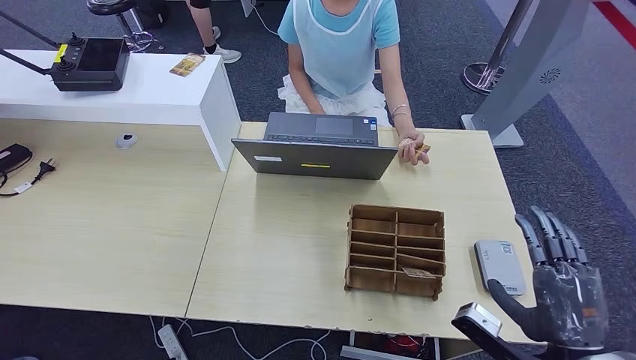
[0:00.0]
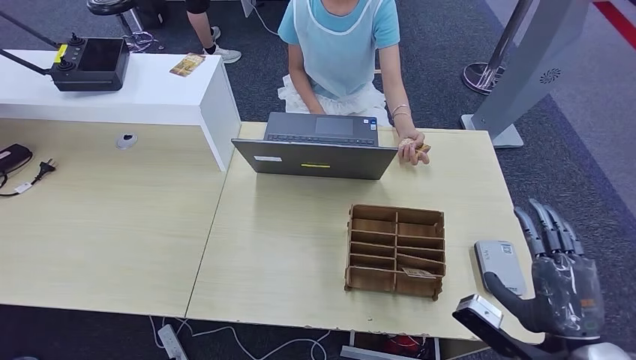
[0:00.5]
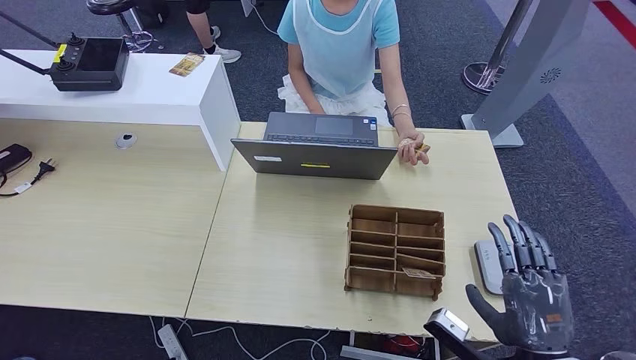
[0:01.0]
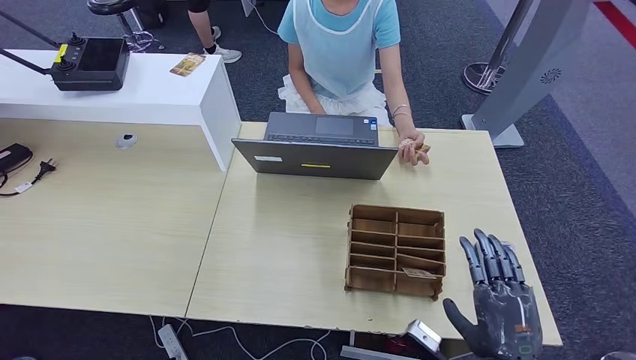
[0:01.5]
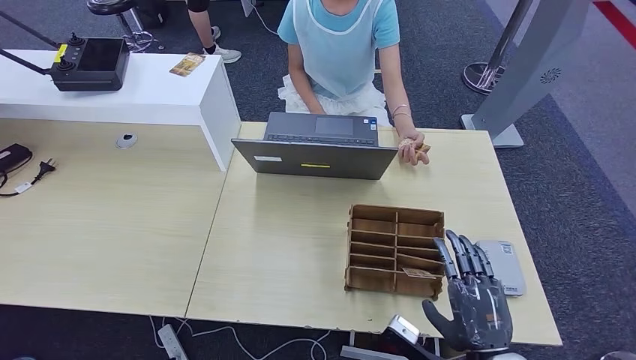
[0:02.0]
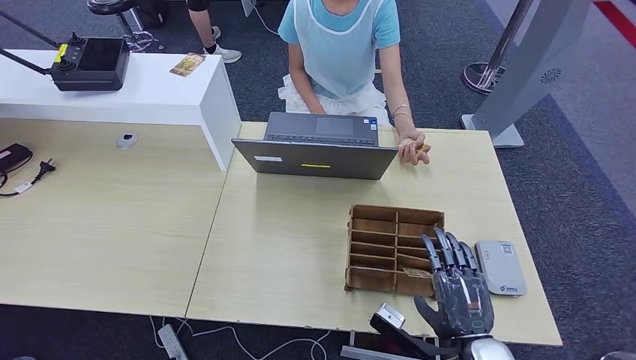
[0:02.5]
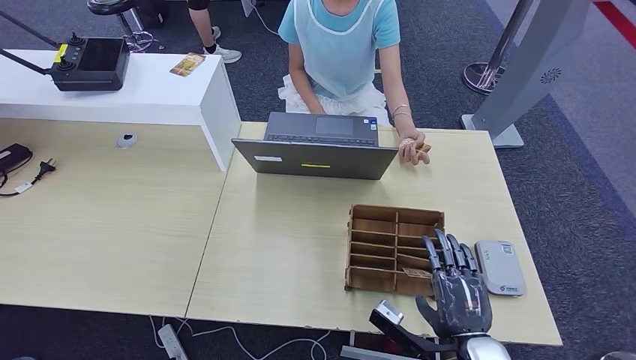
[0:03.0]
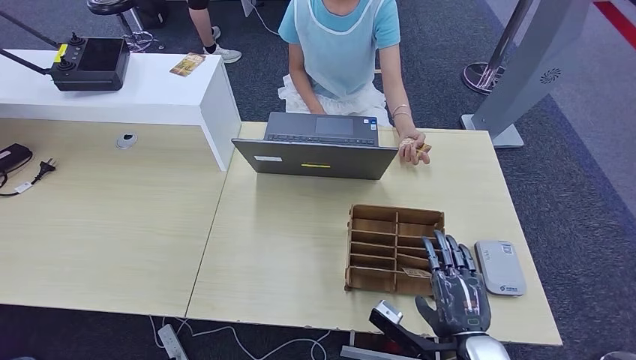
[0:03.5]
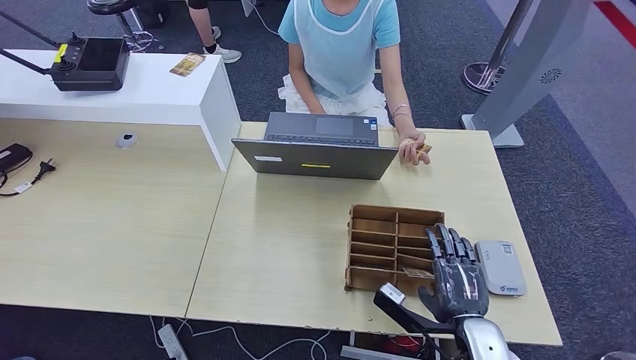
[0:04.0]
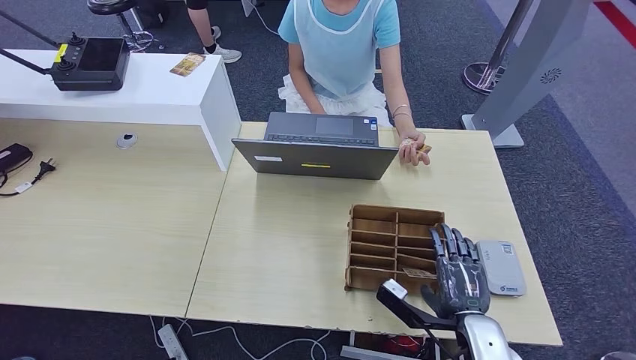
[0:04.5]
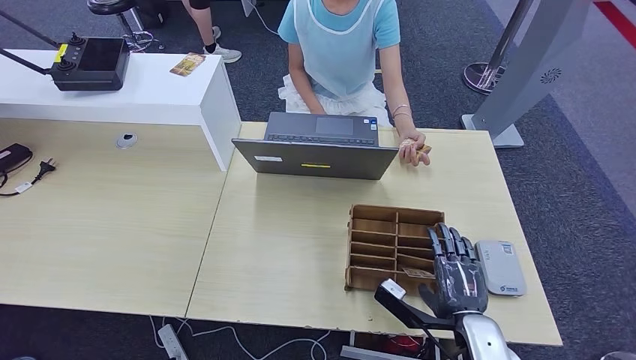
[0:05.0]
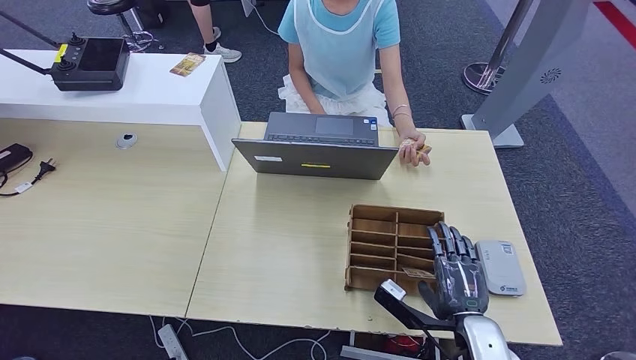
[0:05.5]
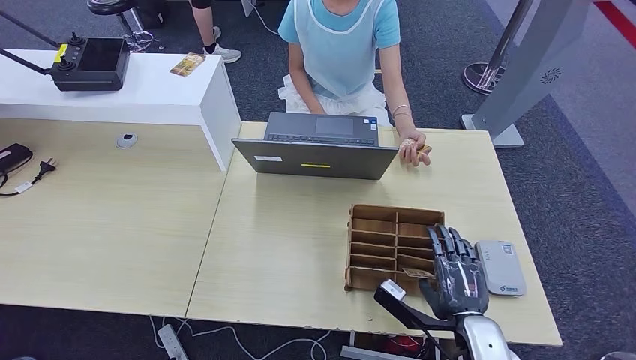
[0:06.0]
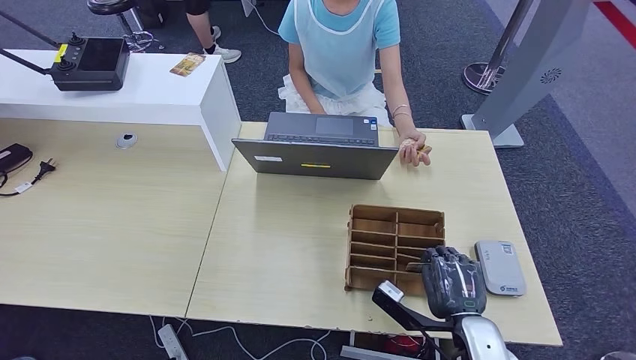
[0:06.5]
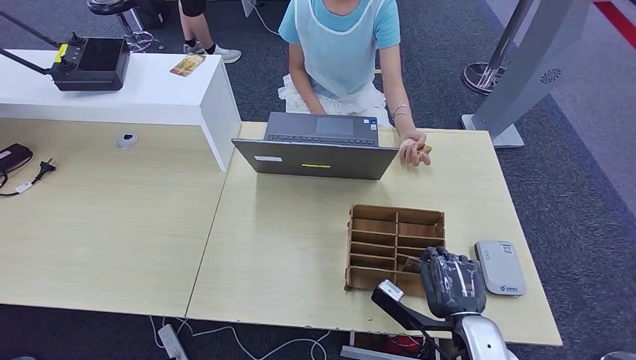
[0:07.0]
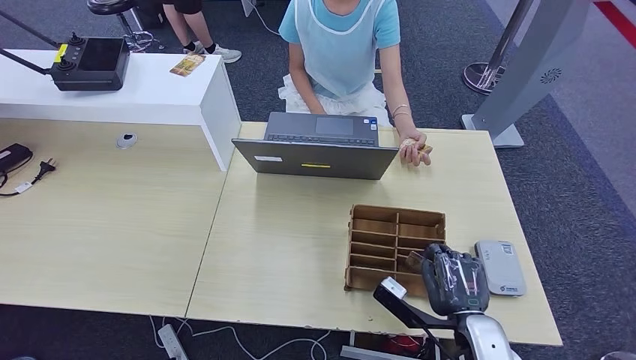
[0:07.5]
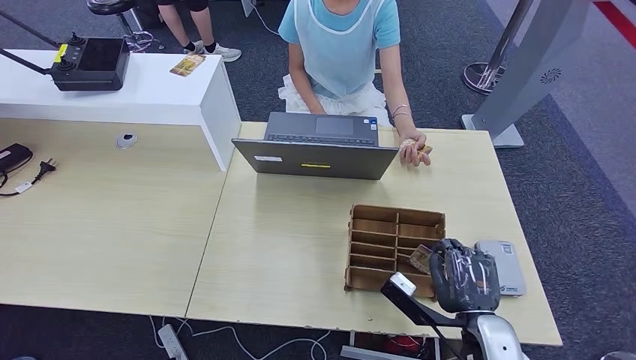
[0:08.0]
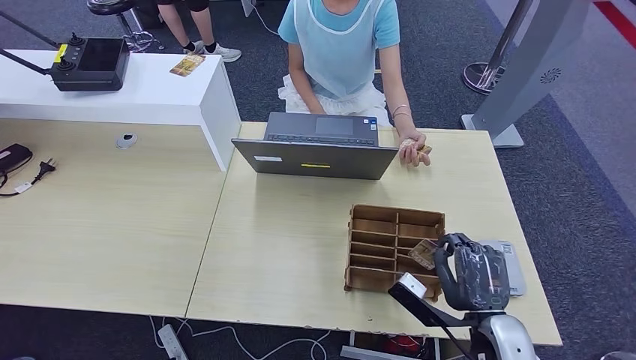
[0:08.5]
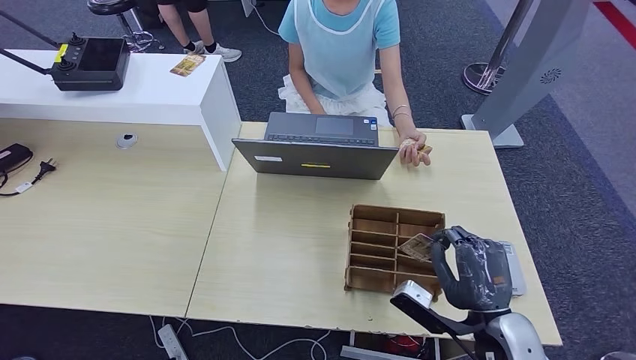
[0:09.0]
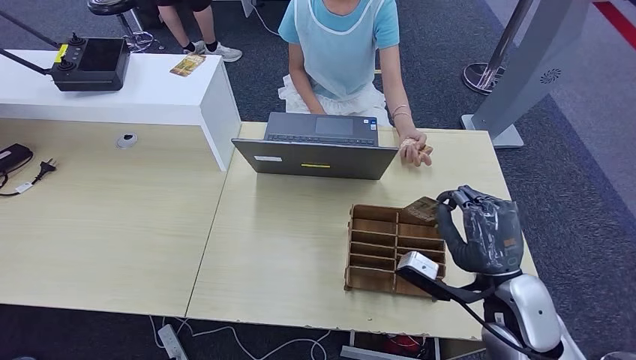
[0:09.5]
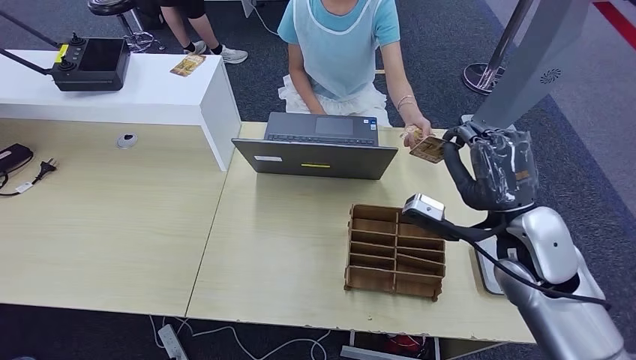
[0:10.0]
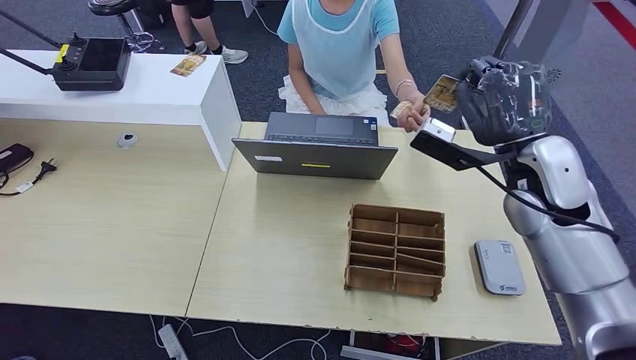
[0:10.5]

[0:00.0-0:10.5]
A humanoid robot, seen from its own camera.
Step, 0:00.0 to 0:08.5: Pick up the room key from the key card box.
0:00.0 to 0:02.0: The right hand goes some 10 cm to the left.
0:02.0 to 0:04.0: The right hand is displaced forward by some 5 cm.
0:04.0 to 0:06.5: Neither hand changes place.
0:06.5 to 0:08.5: The hands make only small movements.
0:08.5 to 0:10.5: The right hand heads upward and forward, covering some 25 cm.

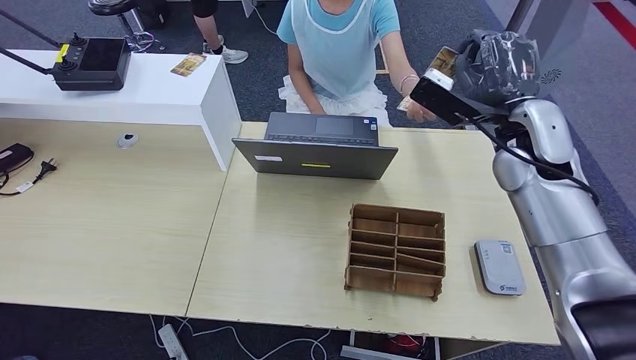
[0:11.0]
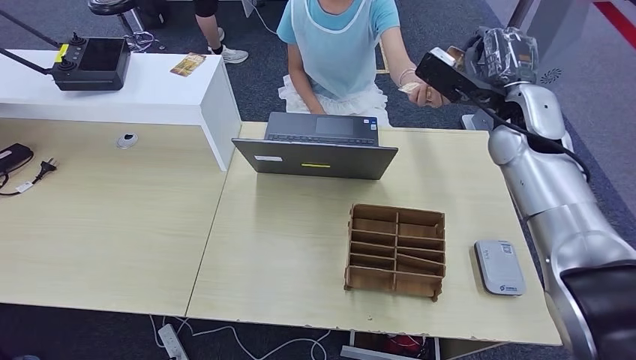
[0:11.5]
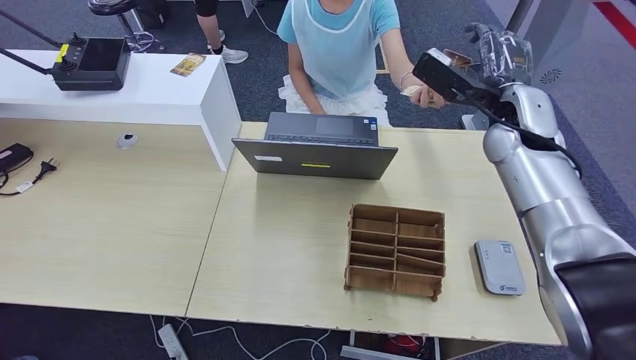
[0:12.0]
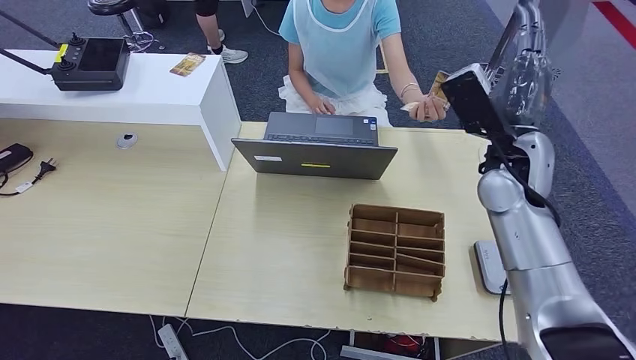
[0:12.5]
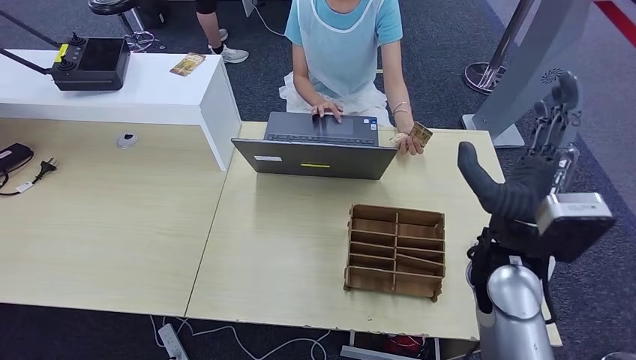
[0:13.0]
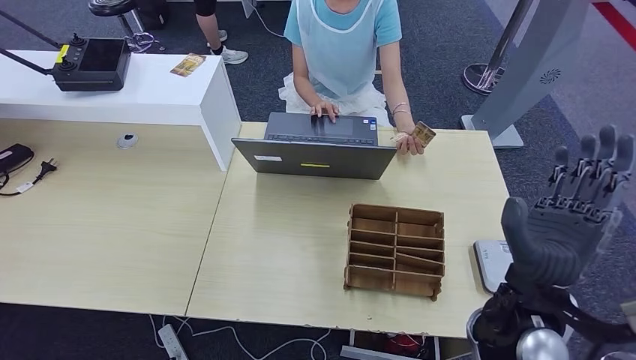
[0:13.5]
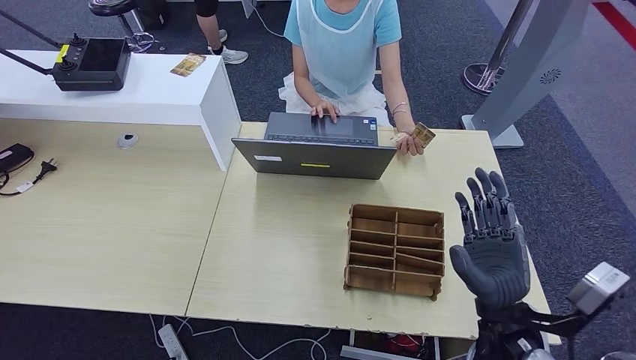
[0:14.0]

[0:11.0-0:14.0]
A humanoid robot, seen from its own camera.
Step, 0:11.0 to 0:14.0: Hand the room key to the person.
0:12.5 to 0:14.0: The right hand moves backward and downward, some 25 cm.
